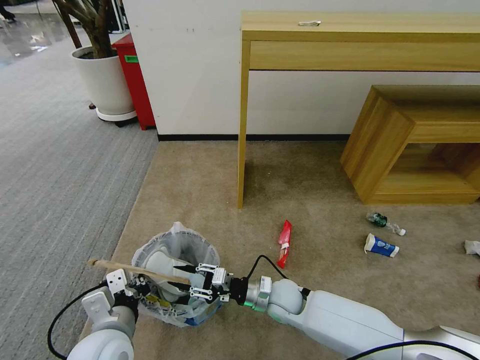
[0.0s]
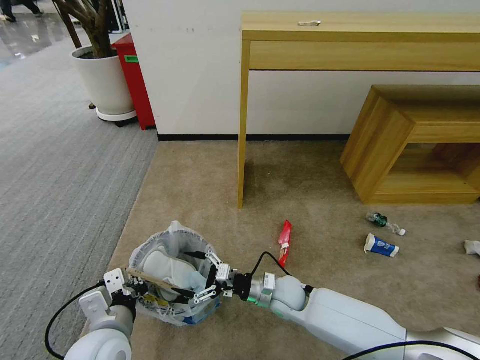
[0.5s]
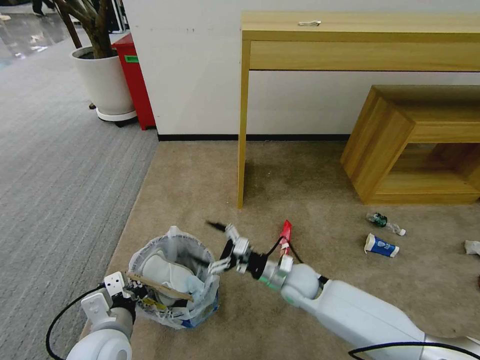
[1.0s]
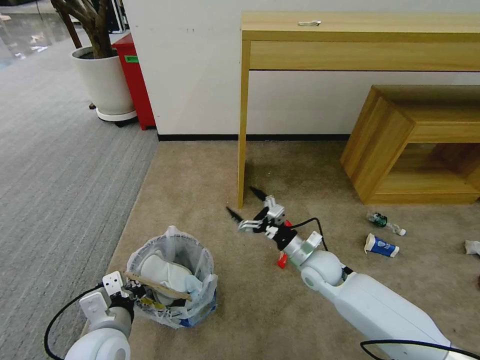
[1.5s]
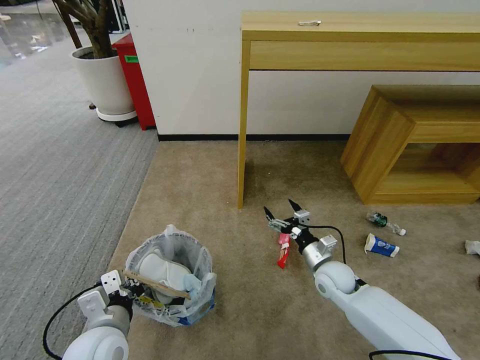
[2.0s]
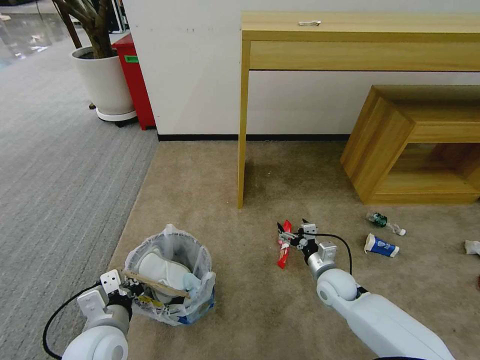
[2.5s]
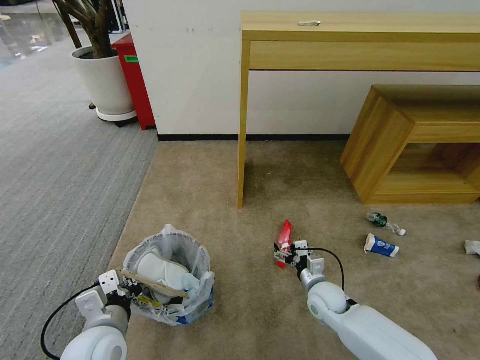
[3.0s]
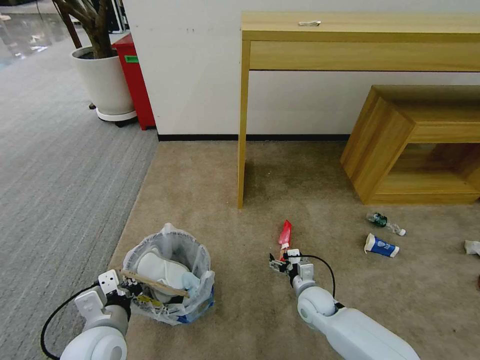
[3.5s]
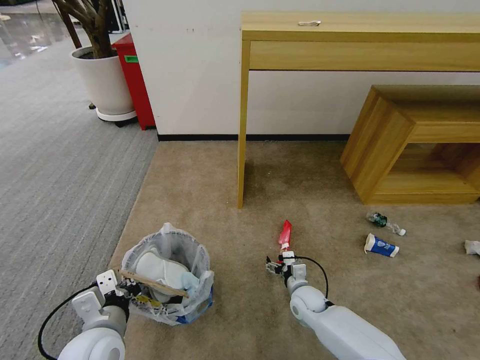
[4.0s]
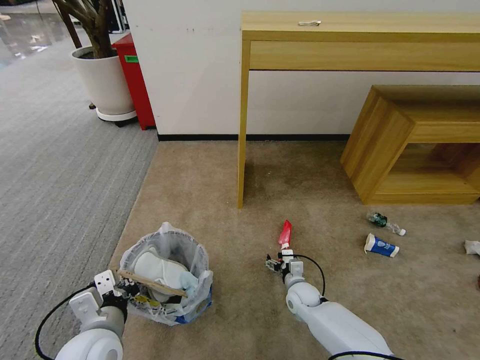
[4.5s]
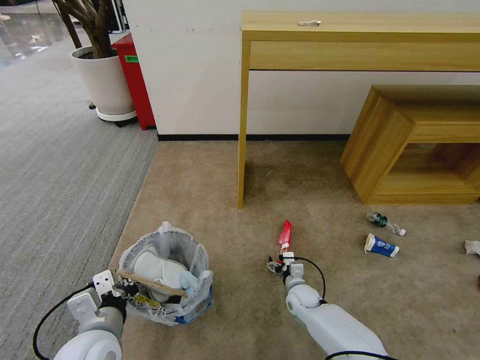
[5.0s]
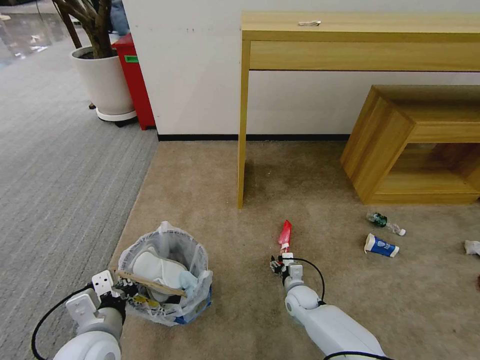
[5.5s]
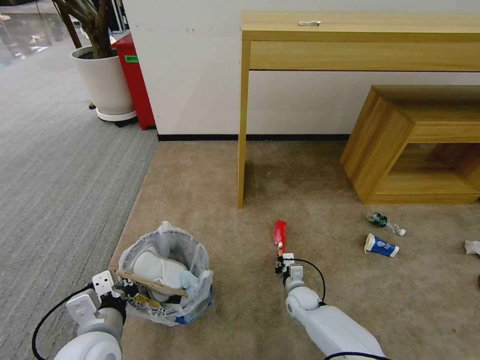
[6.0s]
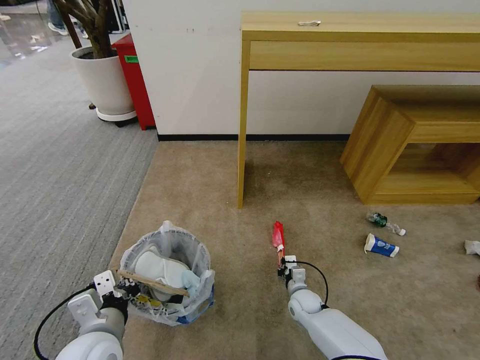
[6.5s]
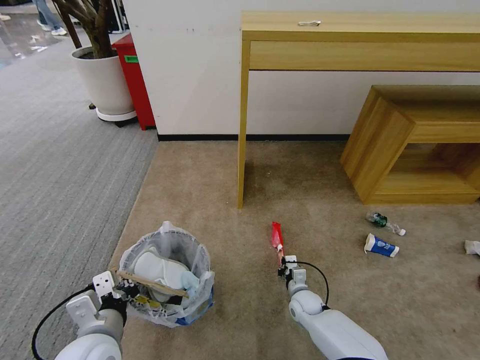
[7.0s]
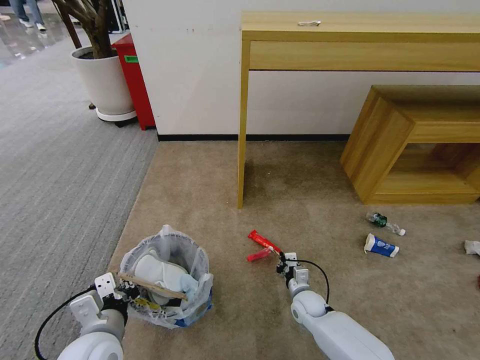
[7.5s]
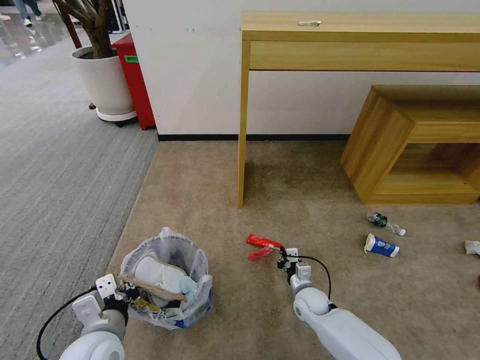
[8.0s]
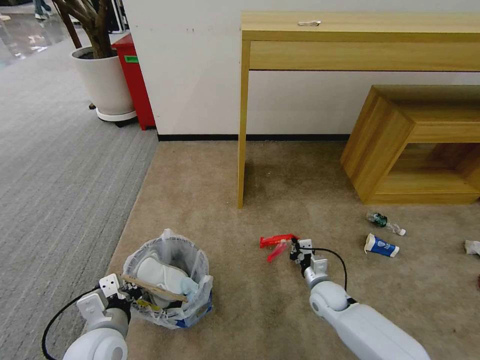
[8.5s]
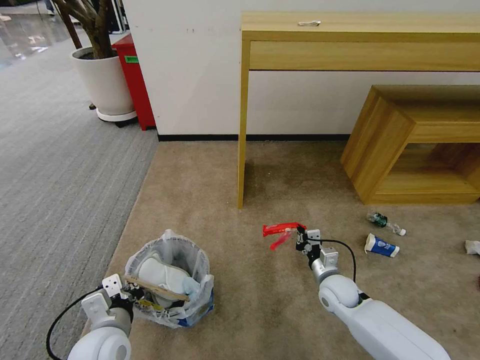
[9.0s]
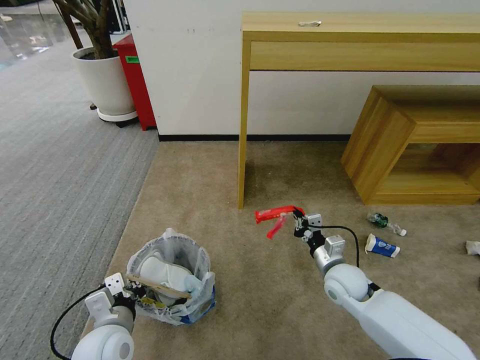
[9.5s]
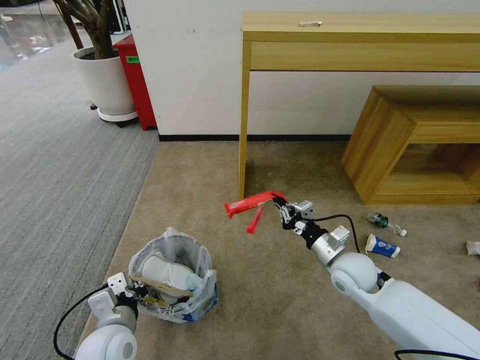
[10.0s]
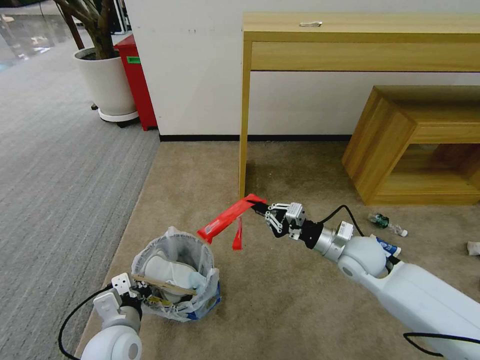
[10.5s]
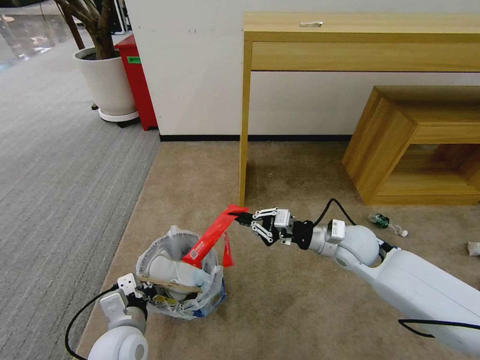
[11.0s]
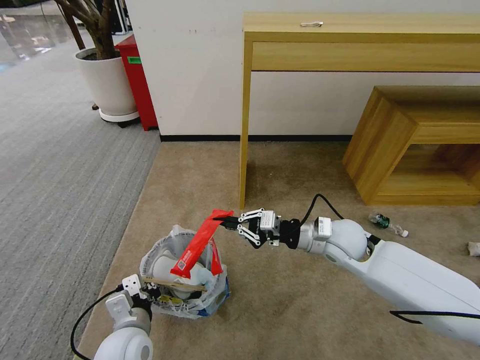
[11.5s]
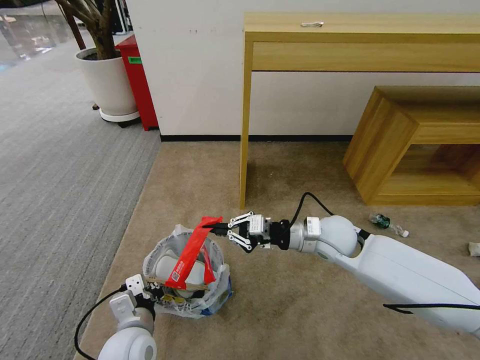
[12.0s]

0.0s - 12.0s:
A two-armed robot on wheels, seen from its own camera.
Task of the whole recording: Pick up the trash bin and place the garbage on the floor into it.
0.0s - 2.0s: The right gripper shifts roughly 15 cm to the right, and opens up.
2.0s - 4.0s: The right gripper goes some 15 cm downward and to the left.
4.0s - 6.0s: The right gripper closes its fingers.
6.0s - 8.0s: The grippers move only a little.
8.0s - 10.0s: The right gripper goes roughly 20 cm upward.
10.0s - 12.0s: The right gripper moves upward and to the left, approximately 10 cm.

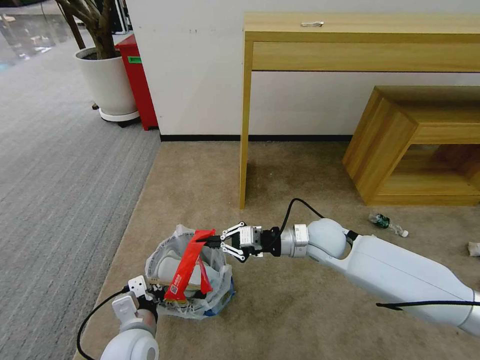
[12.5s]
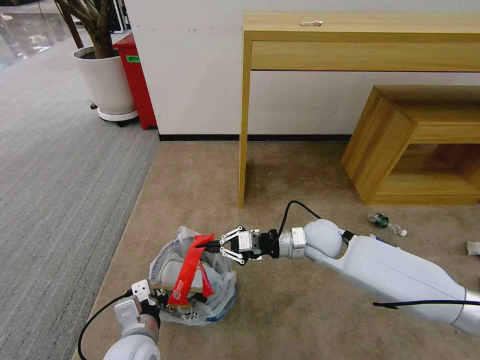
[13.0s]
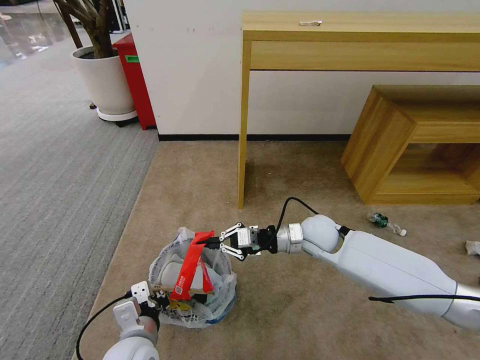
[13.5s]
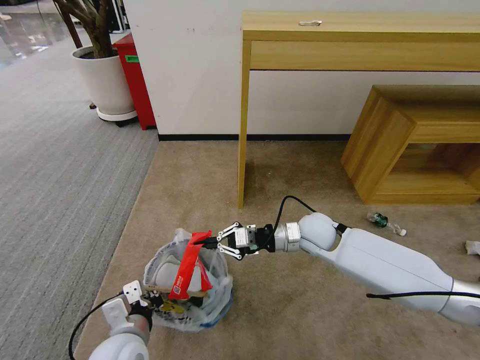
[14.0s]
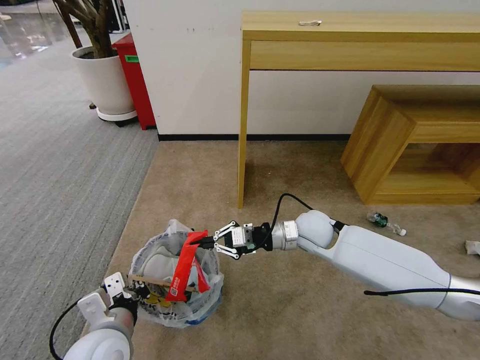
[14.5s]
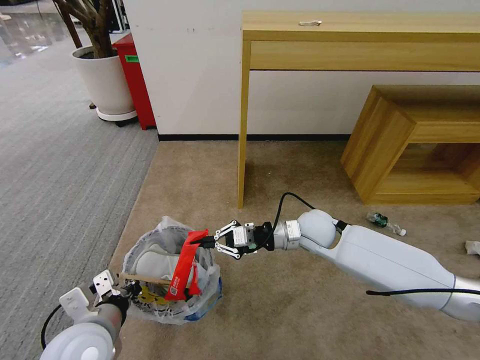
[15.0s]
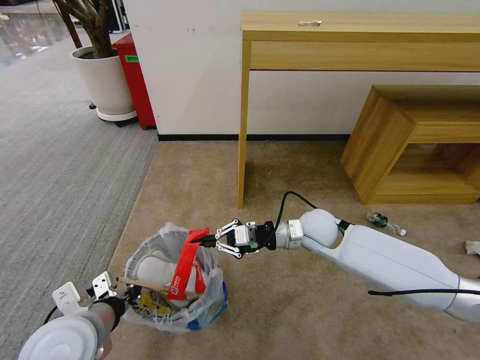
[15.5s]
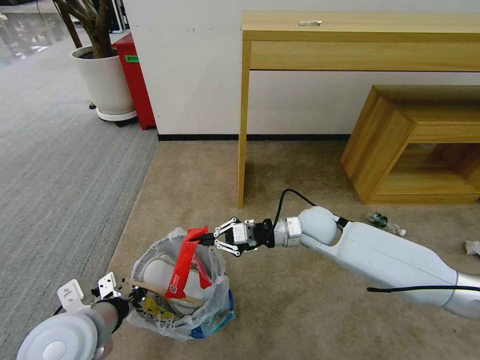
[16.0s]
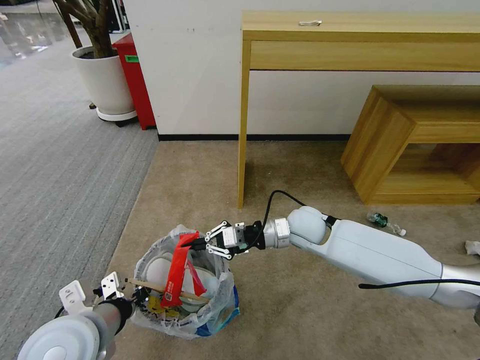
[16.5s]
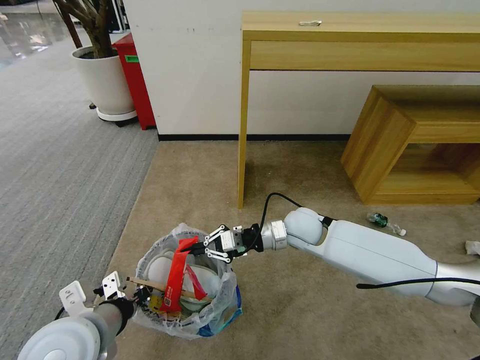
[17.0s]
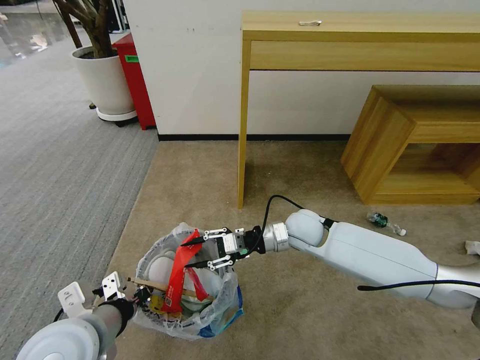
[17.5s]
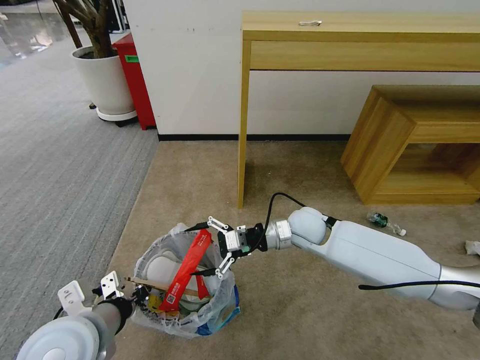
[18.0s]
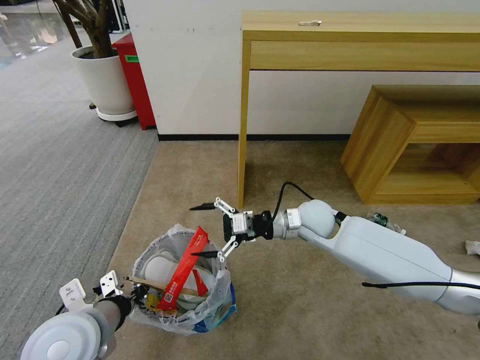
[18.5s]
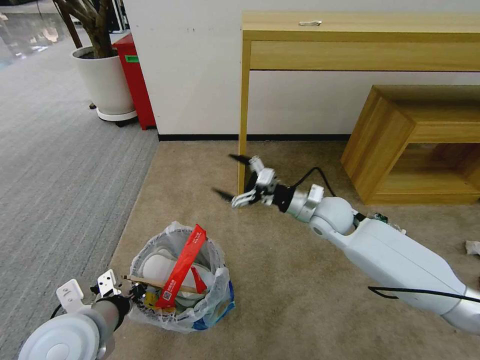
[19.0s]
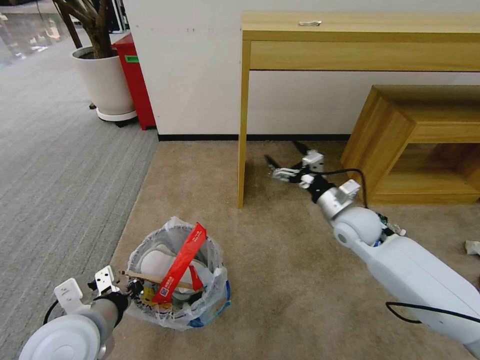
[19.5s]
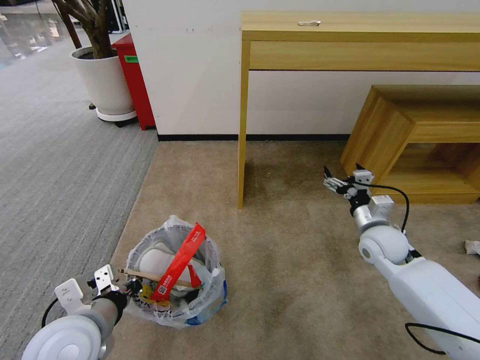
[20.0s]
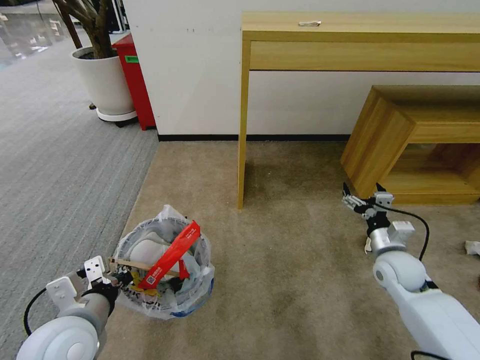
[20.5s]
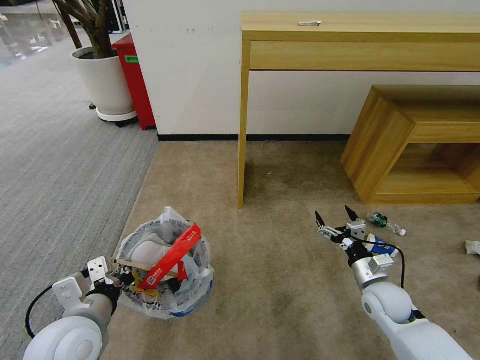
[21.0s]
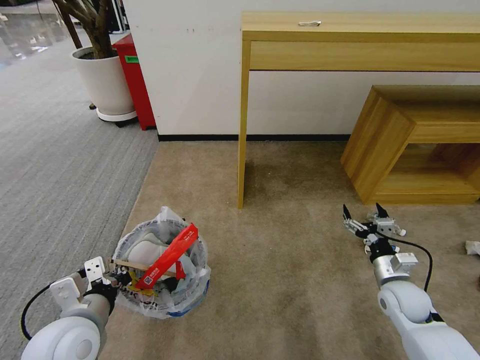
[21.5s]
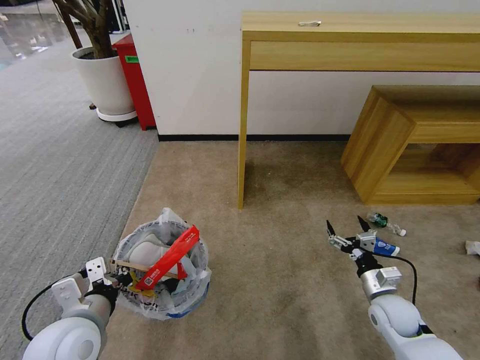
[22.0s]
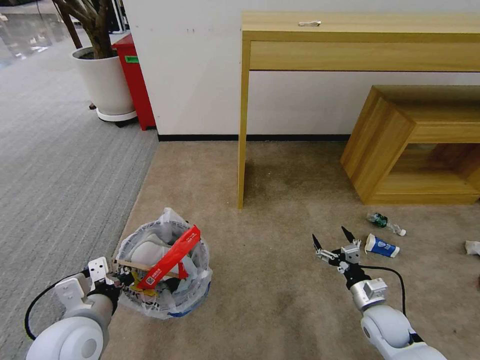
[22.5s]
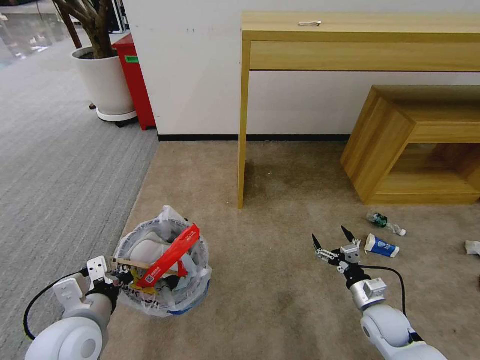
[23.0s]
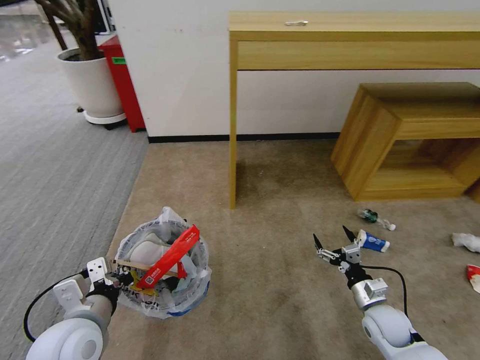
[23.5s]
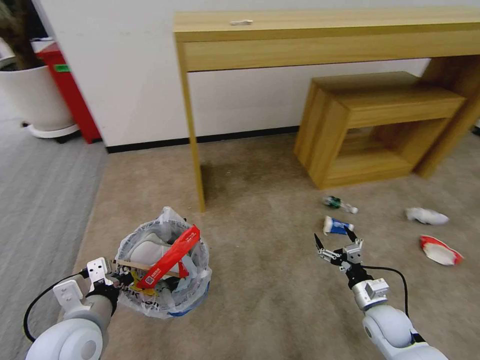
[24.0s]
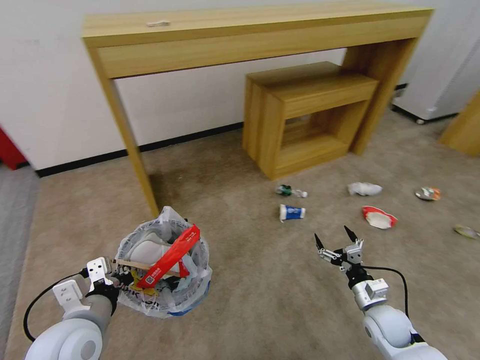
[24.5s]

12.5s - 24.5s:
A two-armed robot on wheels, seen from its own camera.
Task of the whole recording: Pick up the trash bin and place the garbage on the floor into it.
12.5s - 14.5s: The left gripper is displaced upward by about 5 cm.
14.5s - 16.5s: The left gripper shifts about 5 cm upward.
16.5s - 18.5s: The right gripper opens its fingers.
18.5s - 20.5s: The right gripper moves to the right and downward, approximately 20 cm.
20.5s - 22.5s: The right gripper moves downward and backward, some 15 cm.

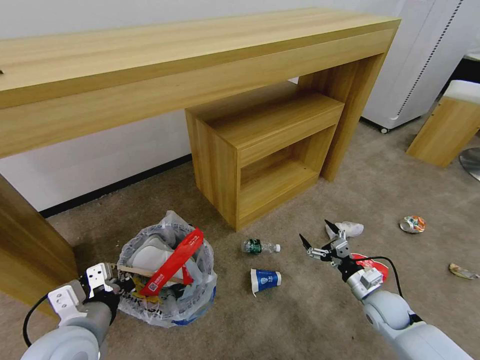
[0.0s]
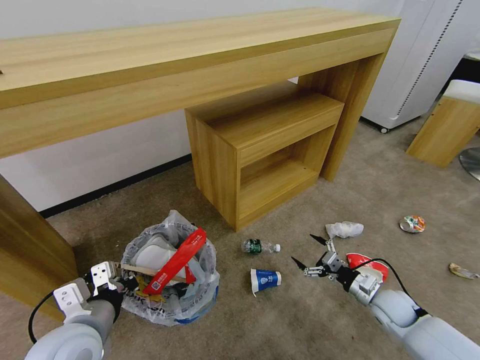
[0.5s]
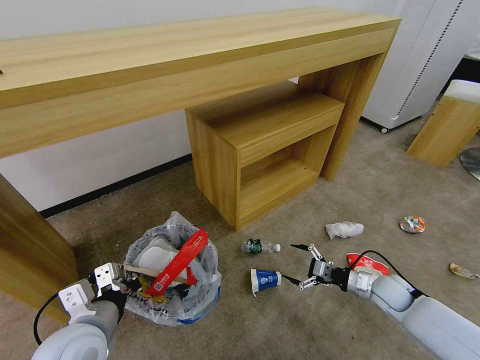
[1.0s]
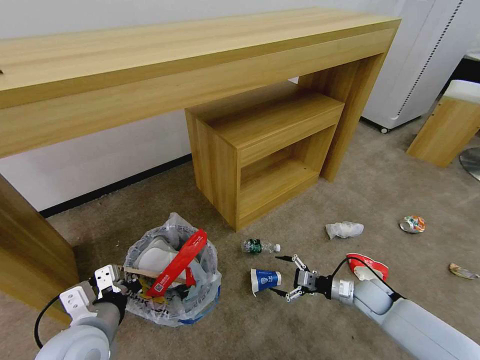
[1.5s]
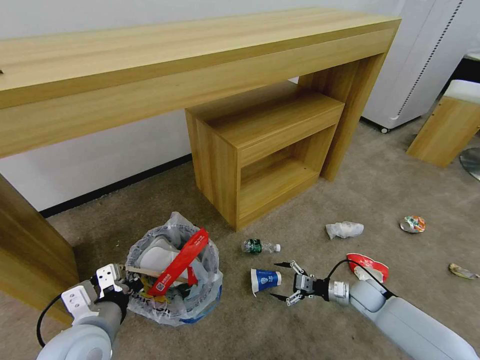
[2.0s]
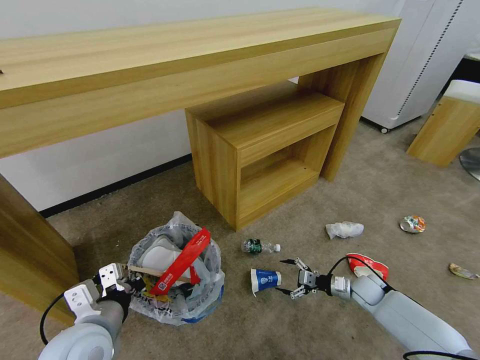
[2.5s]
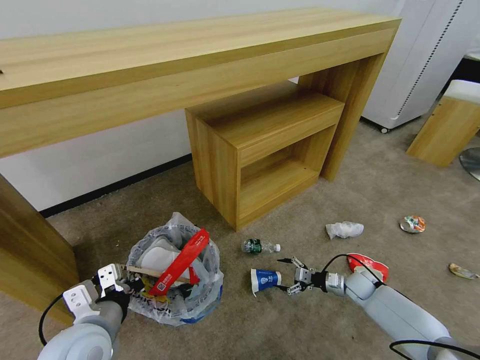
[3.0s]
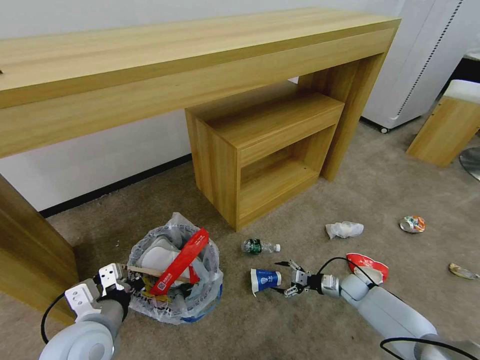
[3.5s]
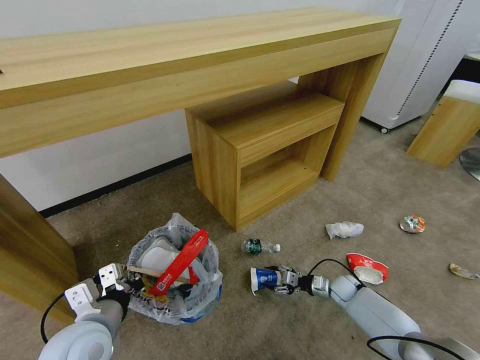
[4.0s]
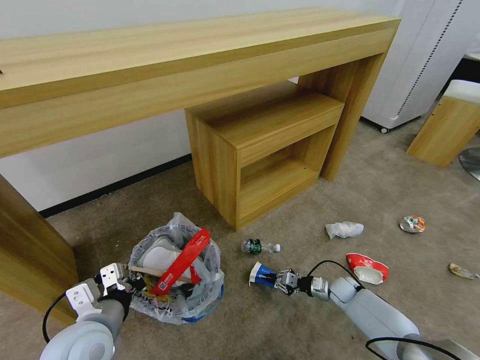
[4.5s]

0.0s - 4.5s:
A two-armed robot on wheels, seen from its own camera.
Task of the whole recording: Pick up the trash bin and place the garbage on the floor into it.
0.0s - 2.0s: The right gripper shifts some 10 cm downward and forward.
2.0s - 4.5s: The right gripper goes roughly 5 cm downward, and closes.
